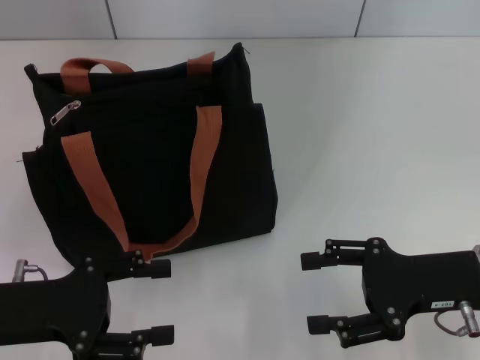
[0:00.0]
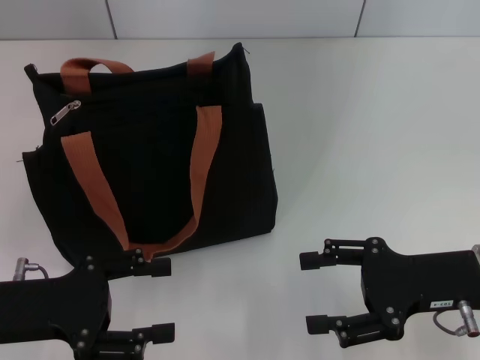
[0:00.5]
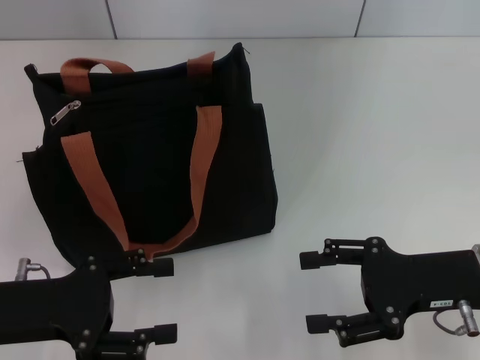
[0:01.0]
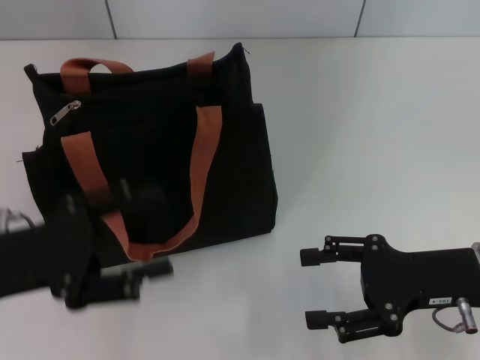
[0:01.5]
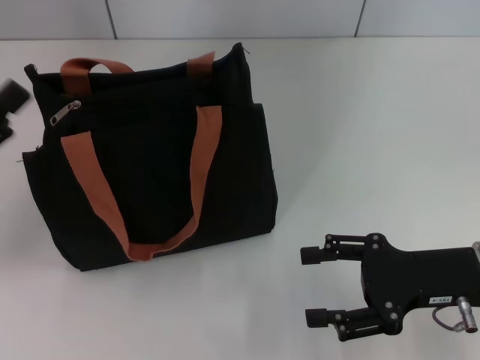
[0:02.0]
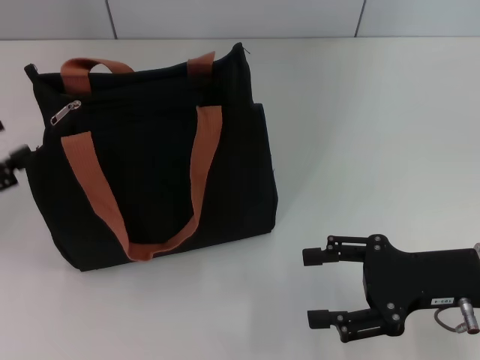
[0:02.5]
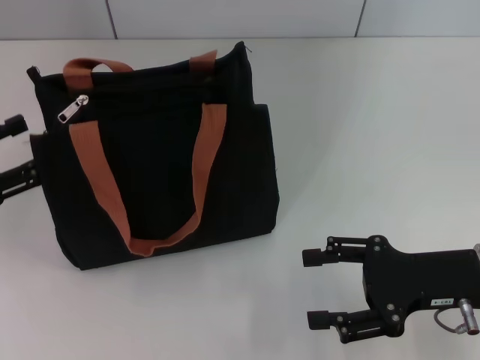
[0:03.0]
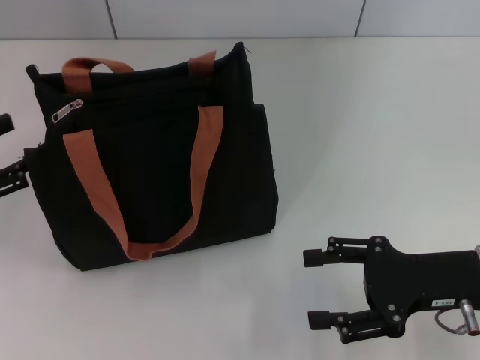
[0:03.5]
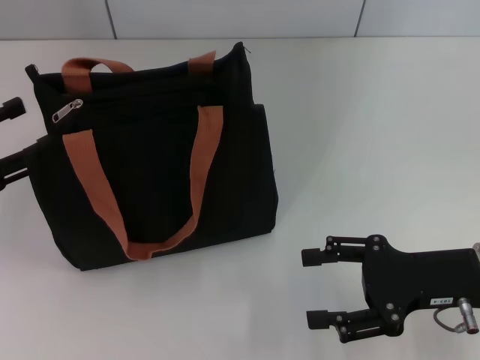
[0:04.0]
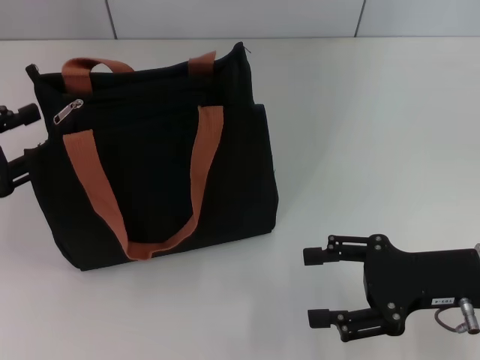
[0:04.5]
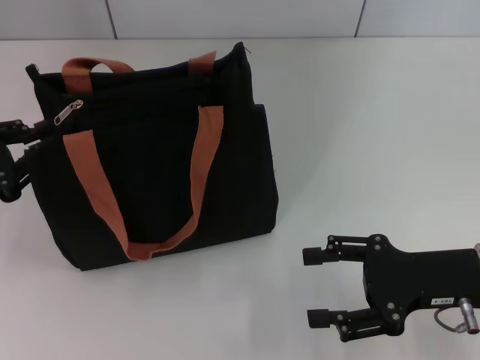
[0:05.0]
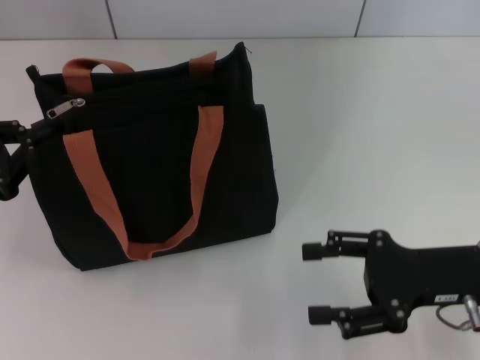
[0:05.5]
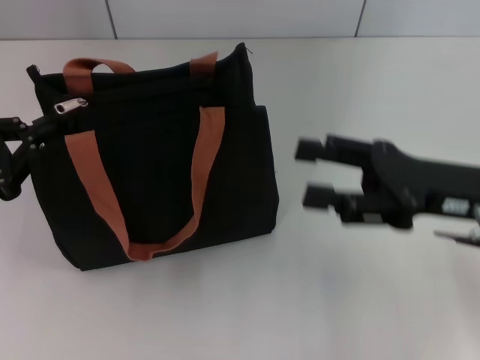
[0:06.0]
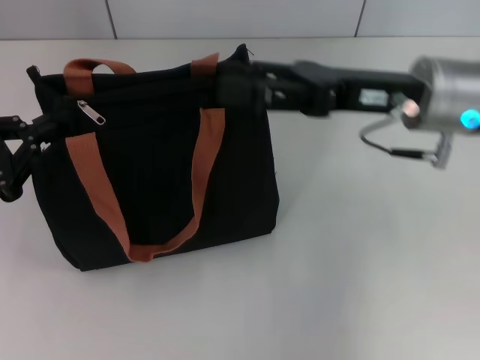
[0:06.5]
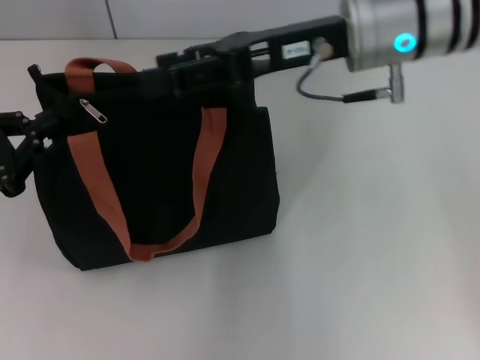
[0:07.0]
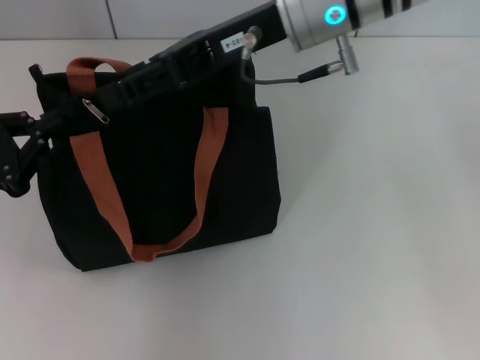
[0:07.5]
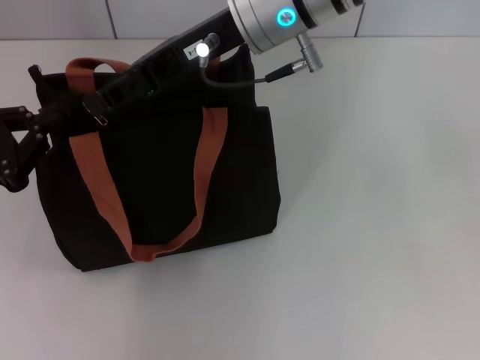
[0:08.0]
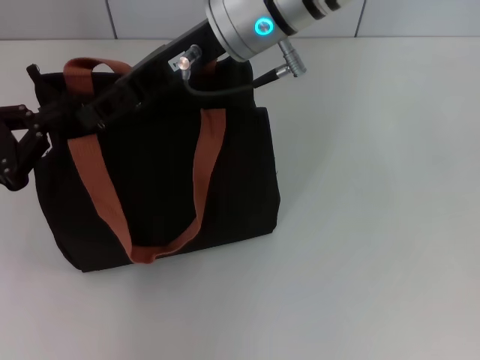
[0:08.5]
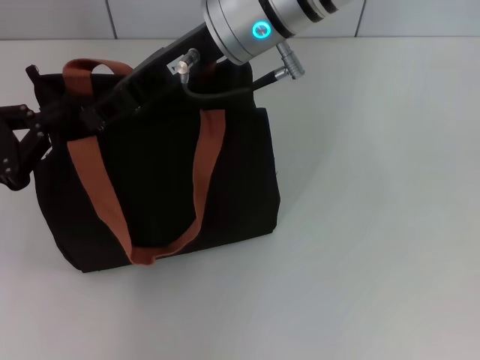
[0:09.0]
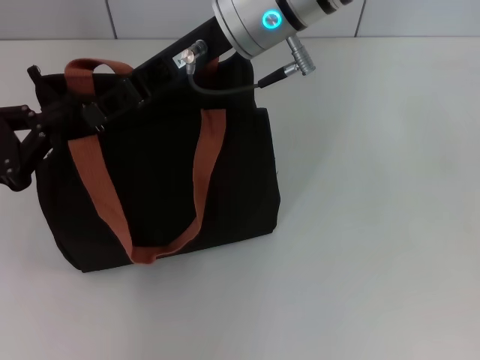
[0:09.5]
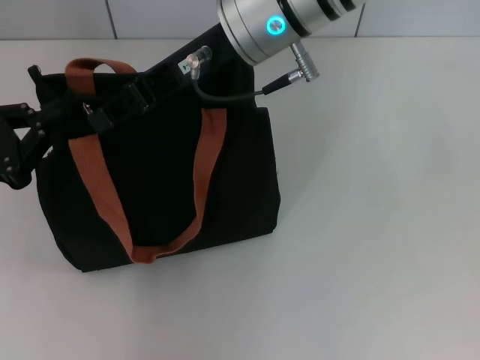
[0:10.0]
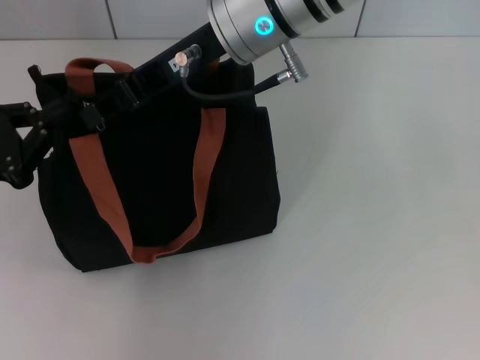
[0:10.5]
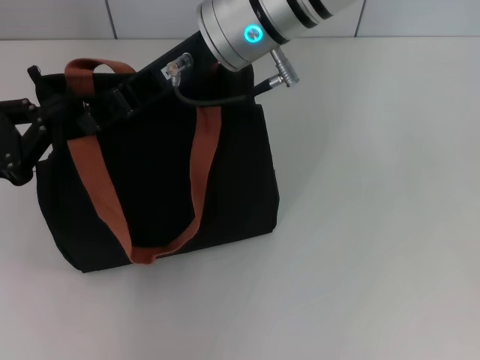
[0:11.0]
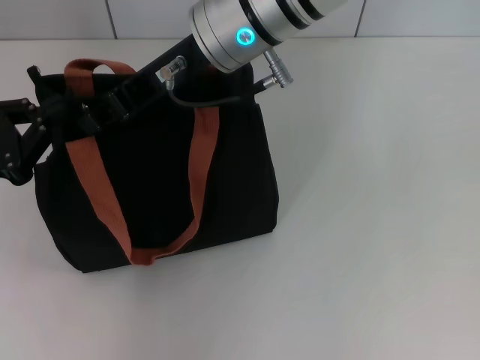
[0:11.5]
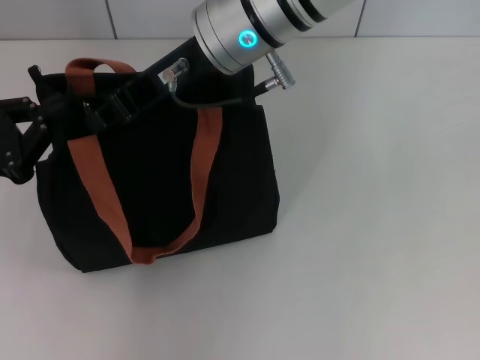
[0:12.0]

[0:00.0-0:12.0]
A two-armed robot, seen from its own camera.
0:00.0 to 0:02.0: The left gripper moves to the left, some 5 cm.
0:02.0 to 0:04.0: The left gripper ends up some 5 cm from where it was.
0:04.0 to 0:06.0: The right gripper heads upward, covering roughly 5 cm. The left gripper closes.
0:06.0 to 0:08.0: The right gripper is displaced to the left, upward and forward by about 25 cm.
0:08.0 to 0:12.0: The grippers stay close to where they were, moving slightly.

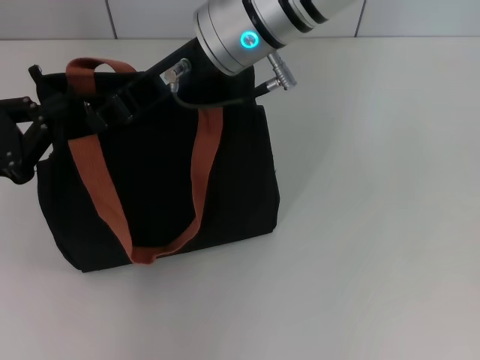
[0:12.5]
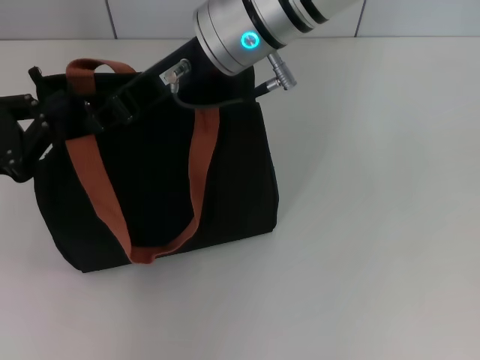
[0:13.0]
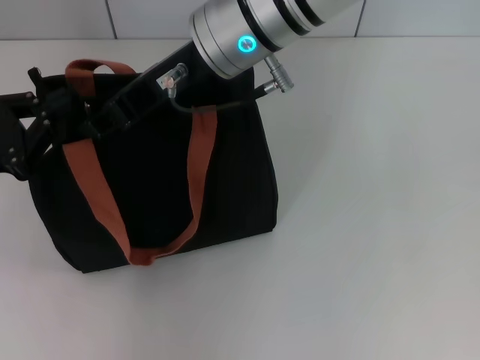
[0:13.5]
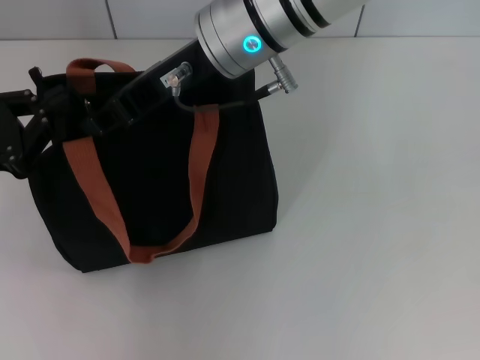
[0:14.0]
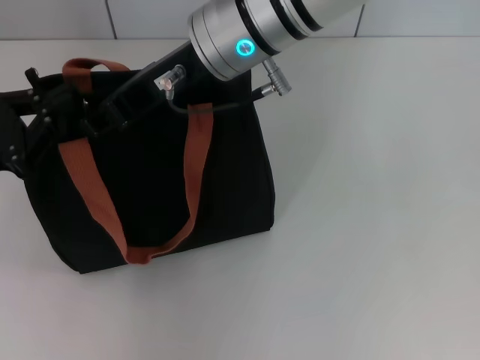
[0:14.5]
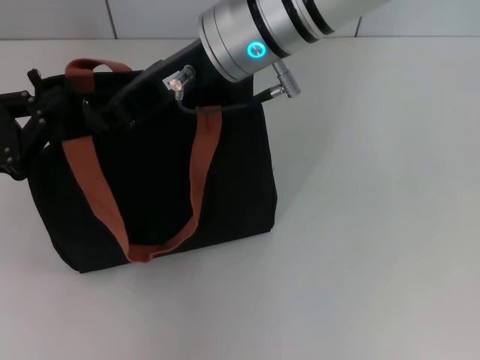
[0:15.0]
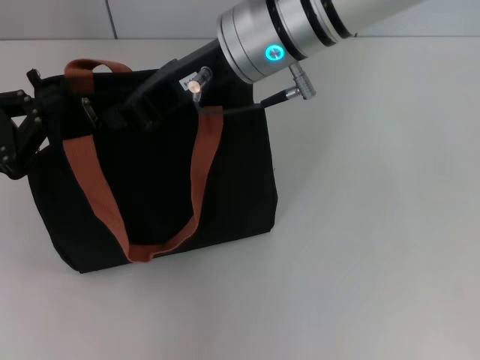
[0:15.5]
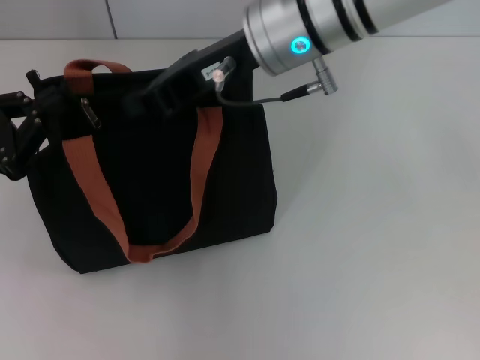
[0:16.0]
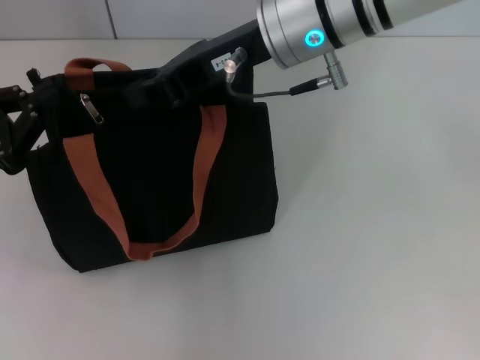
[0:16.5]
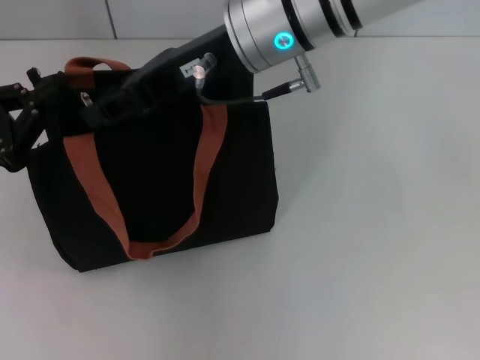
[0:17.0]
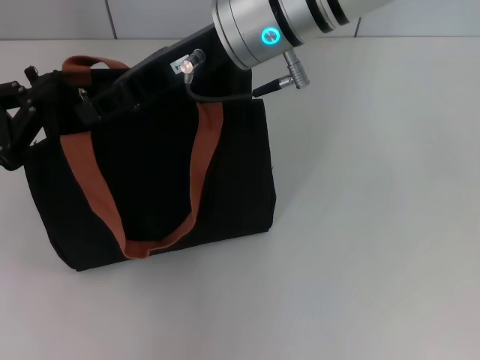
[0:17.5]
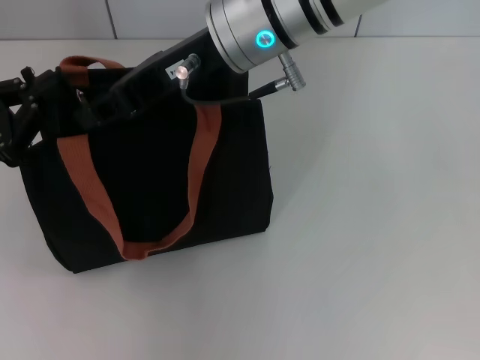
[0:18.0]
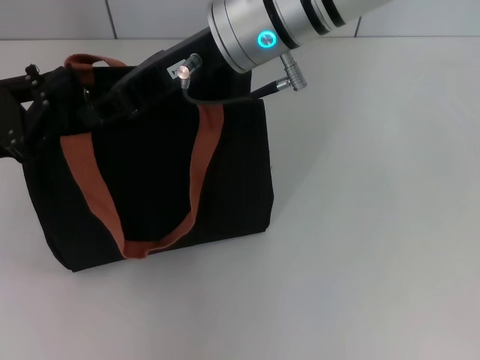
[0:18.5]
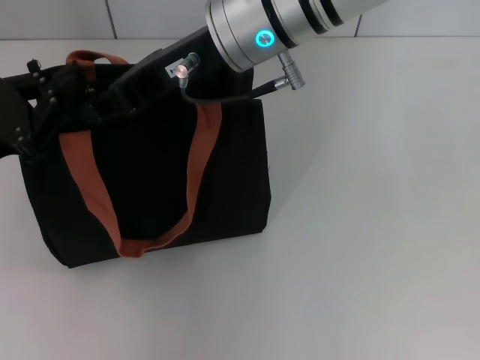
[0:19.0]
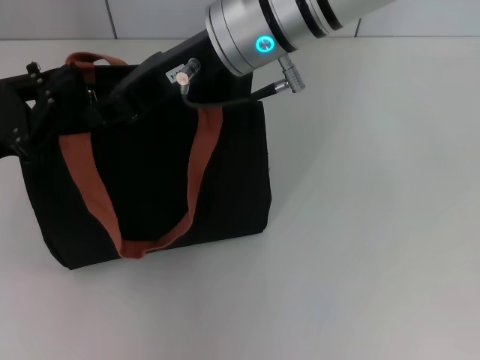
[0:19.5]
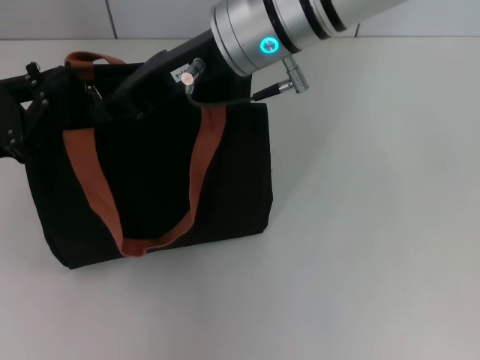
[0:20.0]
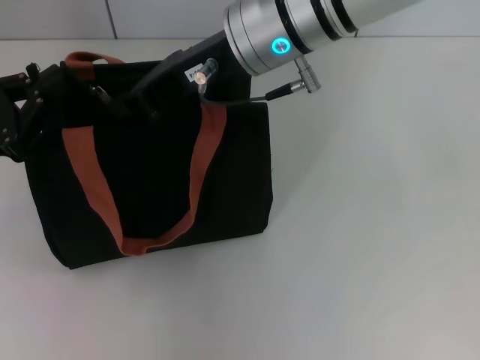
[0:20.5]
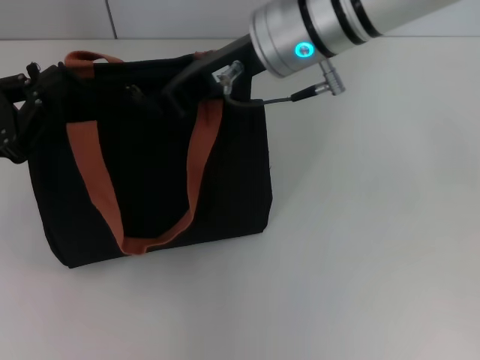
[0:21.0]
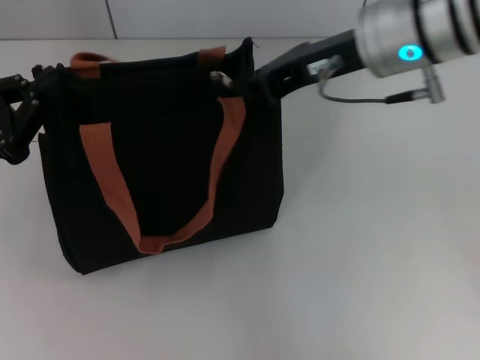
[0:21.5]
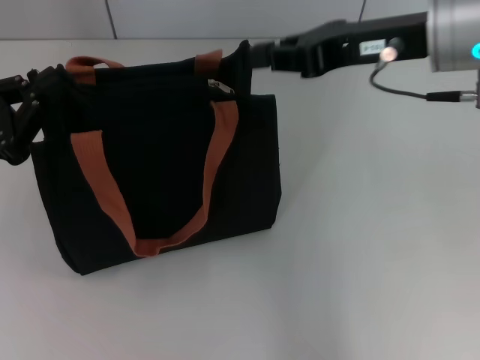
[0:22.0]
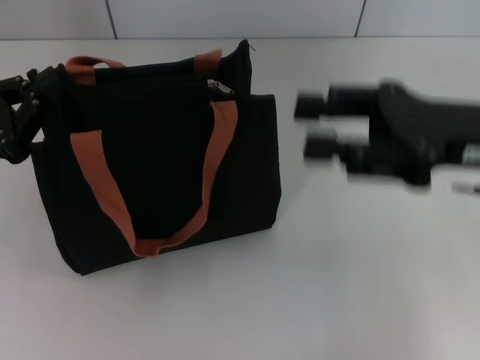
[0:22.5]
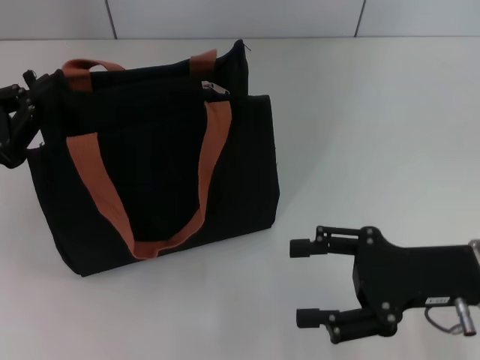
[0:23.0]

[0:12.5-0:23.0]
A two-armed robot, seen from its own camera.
Step, 0:12.5 to 0:21.5: Pull up the zipper with your right hand.
0:12.5 to 0:14.5: Both grippers stay about where they are.
0:14.5 to 0:21.0: The grippers make only small movements.
0:21.0 to 0:23.0: The right gripper goes approximately 25 cm to the right, downward and backward, and opens up.

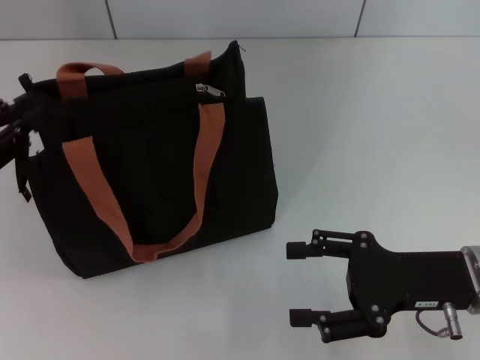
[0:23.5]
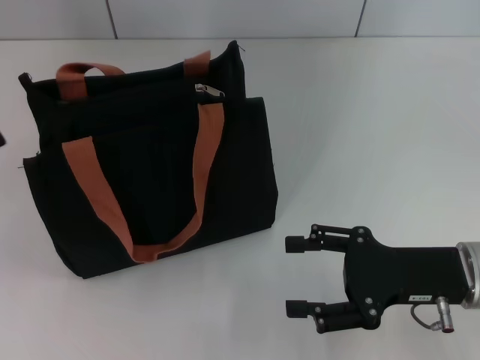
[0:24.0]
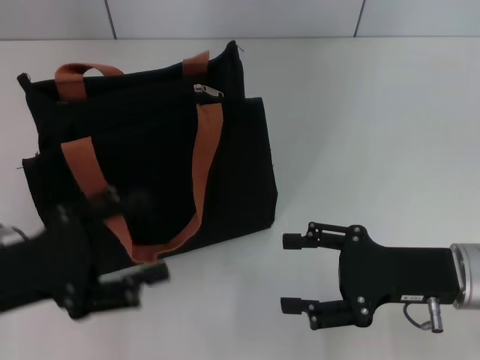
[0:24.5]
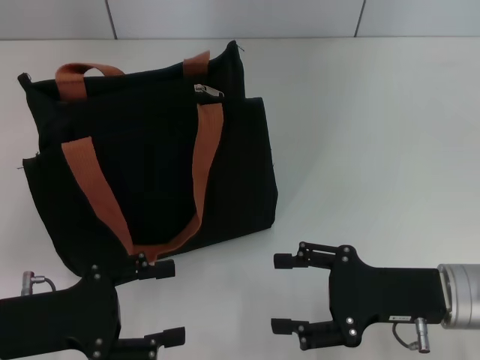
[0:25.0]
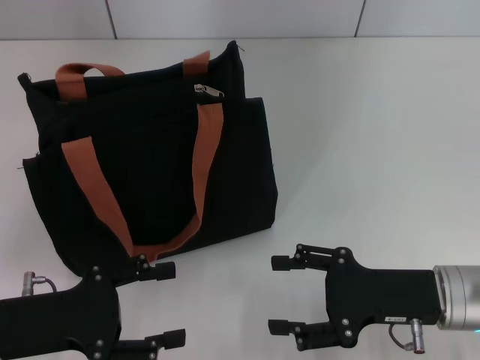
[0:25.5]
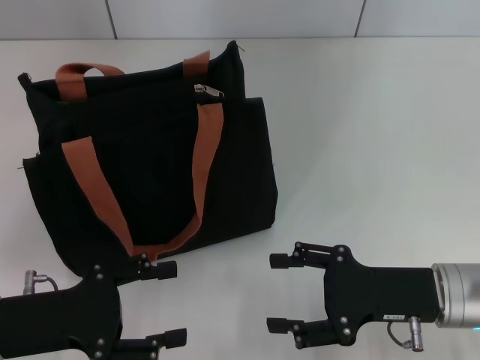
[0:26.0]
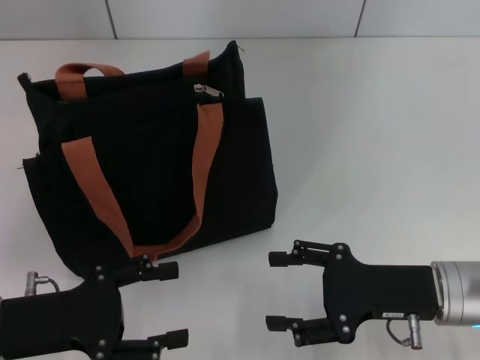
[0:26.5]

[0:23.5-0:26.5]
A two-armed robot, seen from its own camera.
0:23.5 to 0:25.0: The left gripper travels to the right, downward and backward by roughly 10 cm, and opens up.
0:25.0 to 0:26.5: Both grippers stay put.
